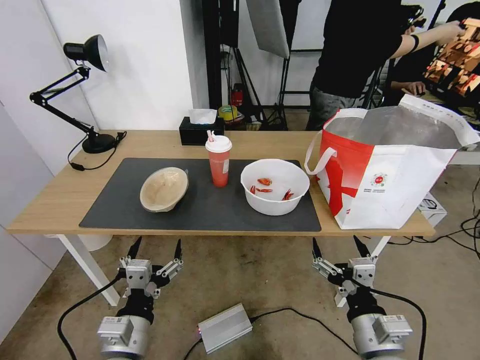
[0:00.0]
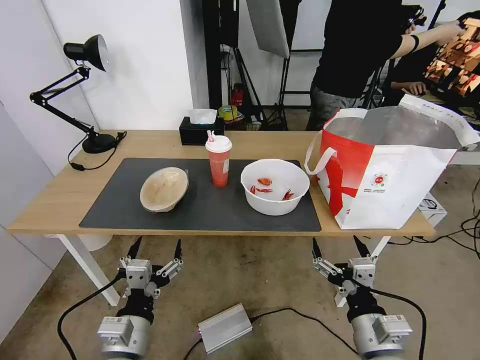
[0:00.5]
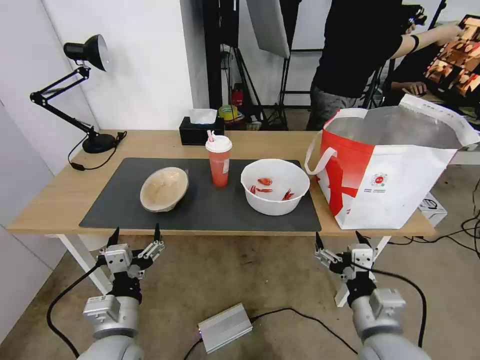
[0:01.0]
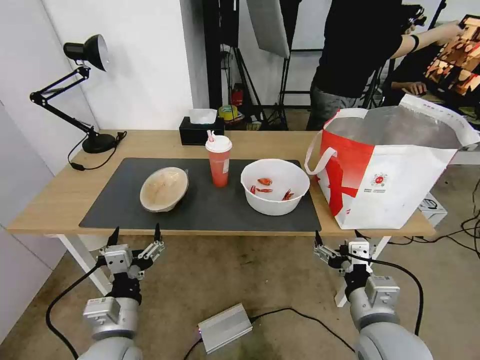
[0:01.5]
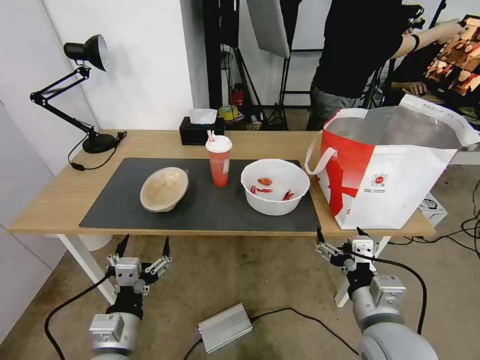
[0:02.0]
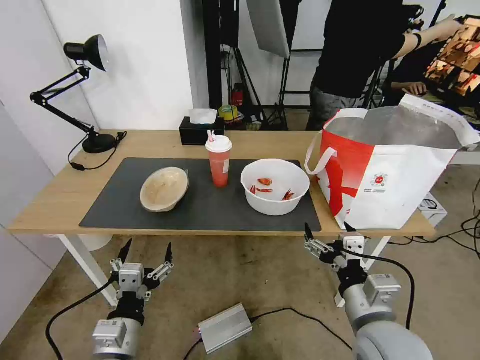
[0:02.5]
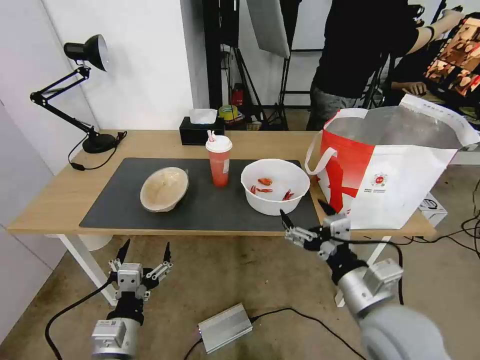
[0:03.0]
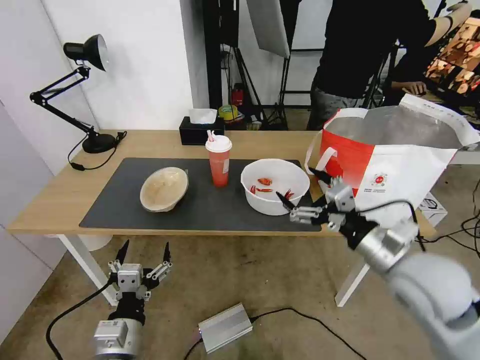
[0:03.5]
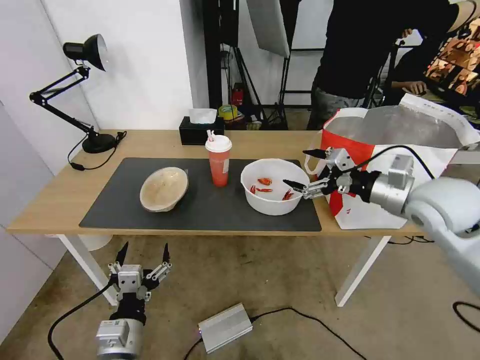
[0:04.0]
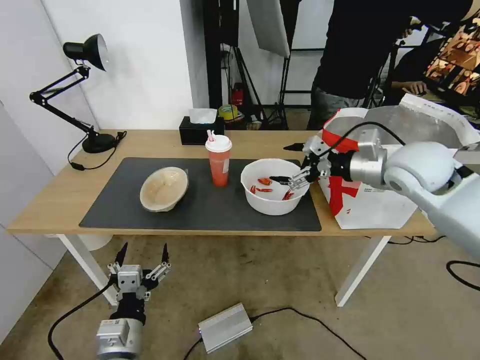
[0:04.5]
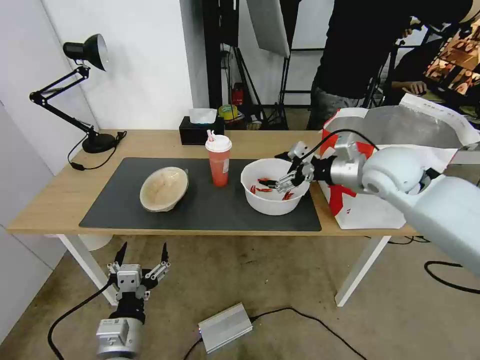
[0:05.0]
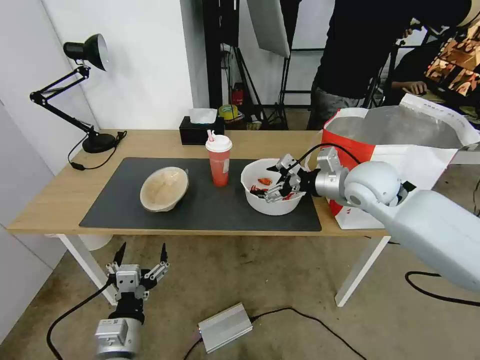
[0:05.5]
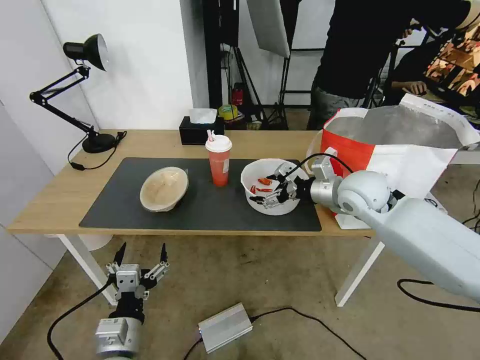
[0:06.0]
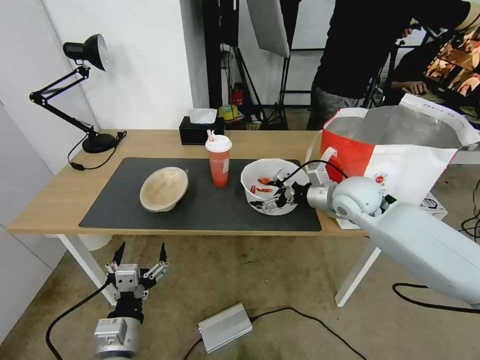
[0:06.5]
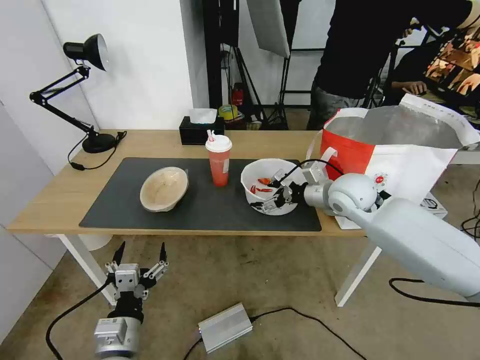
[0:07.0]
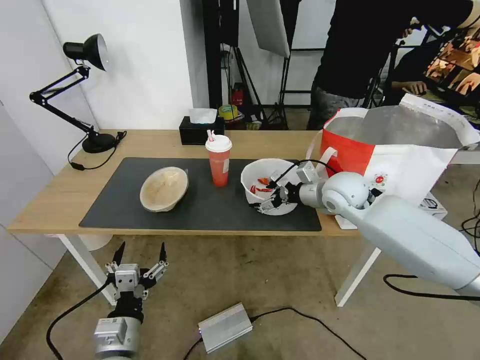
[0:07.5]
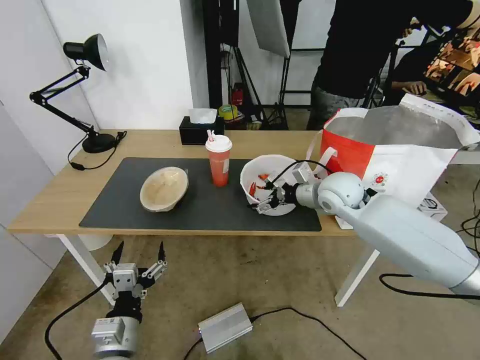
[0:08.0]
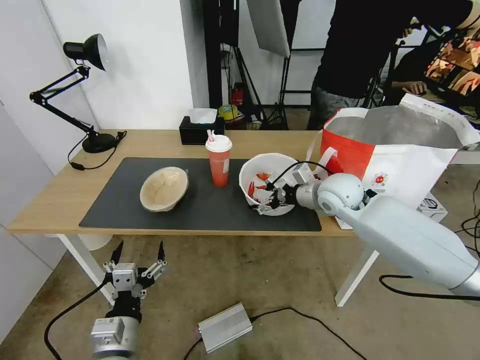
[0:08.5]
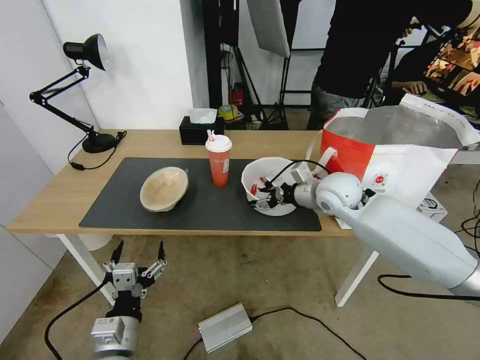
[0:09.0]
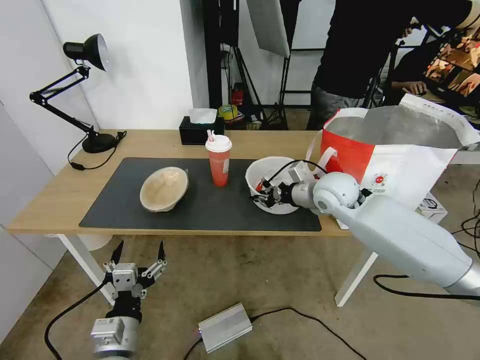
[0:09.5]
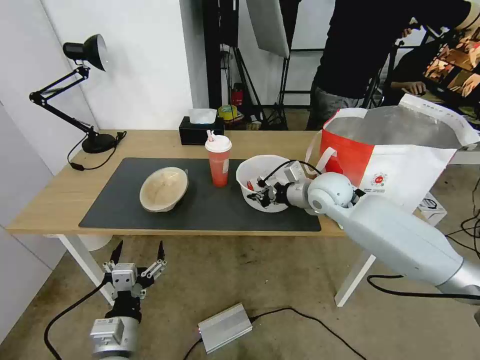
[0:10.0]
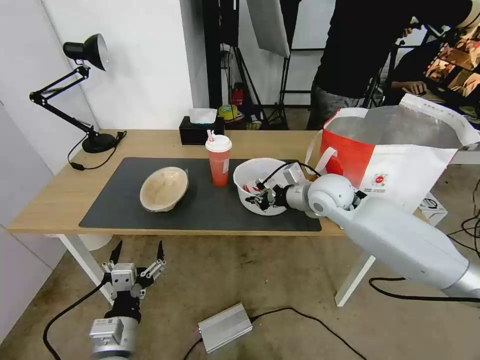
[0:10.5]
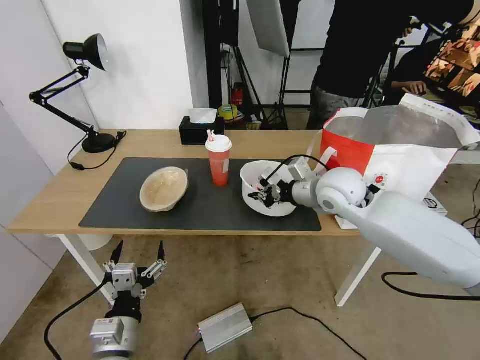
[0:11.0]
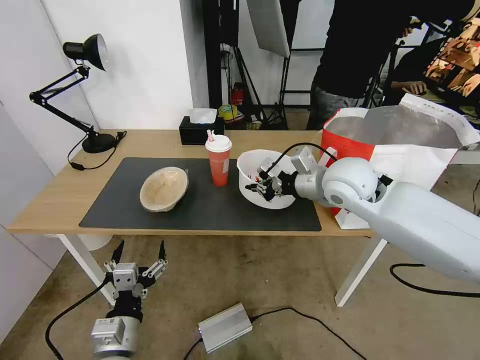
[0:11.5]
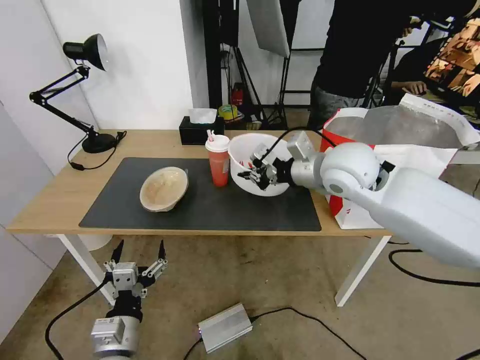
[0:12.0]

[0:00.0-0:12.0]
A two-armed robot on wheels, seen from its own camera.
Task of the whole recording: Pick up the trash from the table and place it into the takeout bag.
0:02.0 to 0:04.0: The right gripper is displaced forward, upward and to the right by roughly 25 cm.
0:04.0 to 0:06.0: The right gripper heads to the left, forward and downward, covering some 15 cm.
0:06.0 to 0:08.0: The right gripper moves roughly 5 cm.
0:08.0 to 0:10.0: The right gripper closes up.
0:10.0 to 0:12.0: The right gripper moves upward and backward, roughly 10 cm.

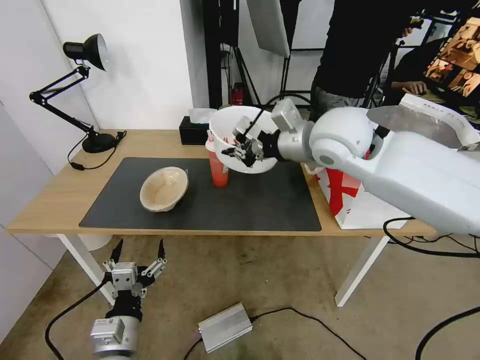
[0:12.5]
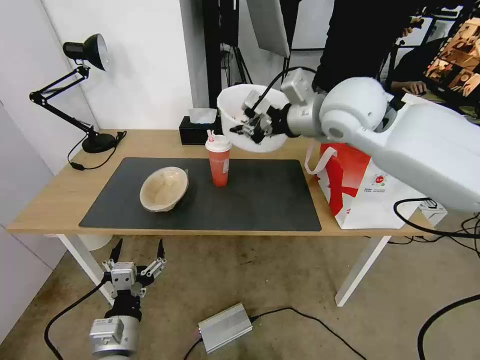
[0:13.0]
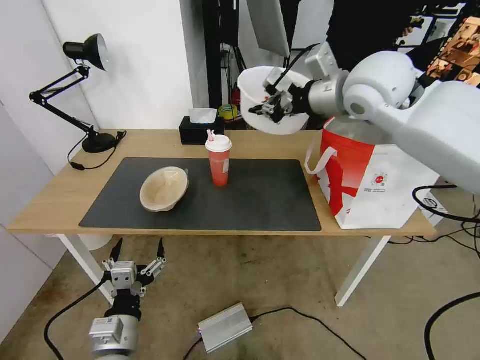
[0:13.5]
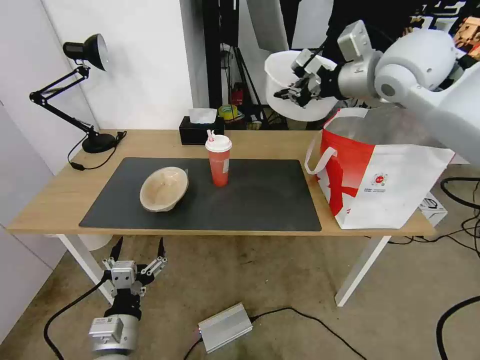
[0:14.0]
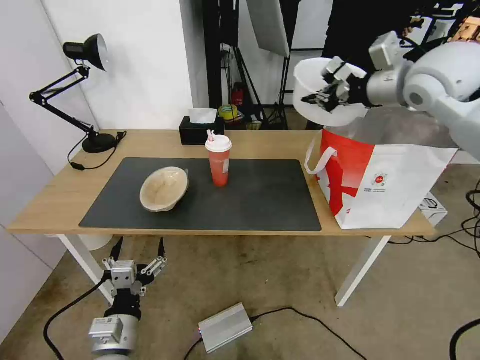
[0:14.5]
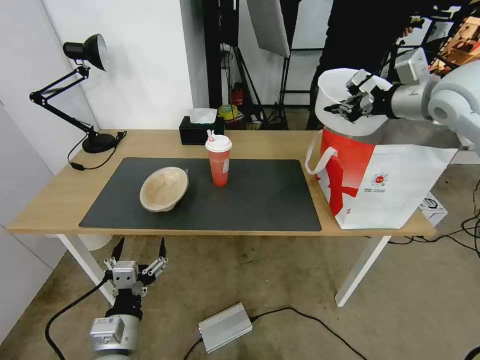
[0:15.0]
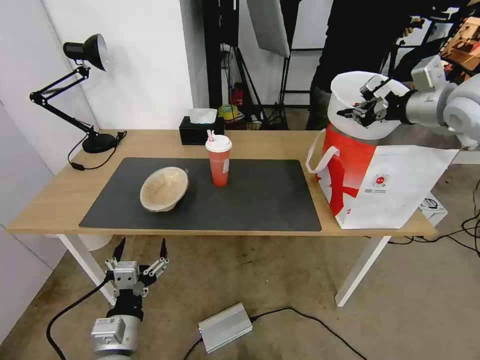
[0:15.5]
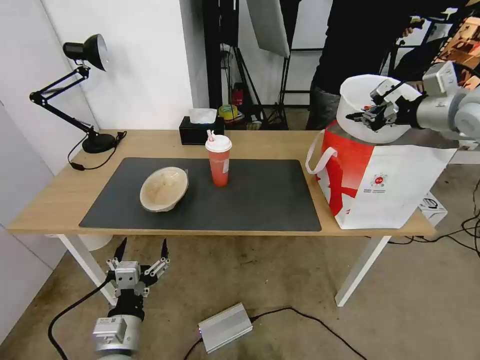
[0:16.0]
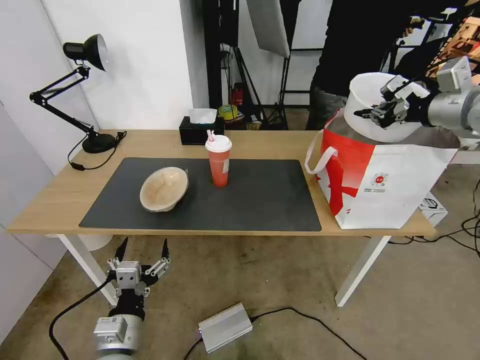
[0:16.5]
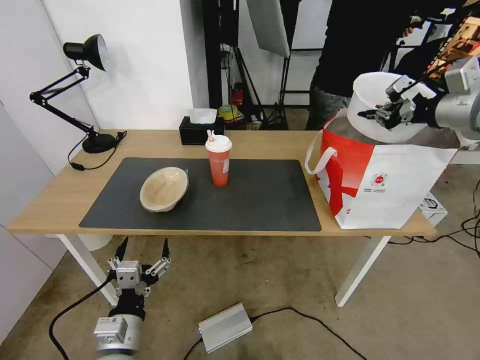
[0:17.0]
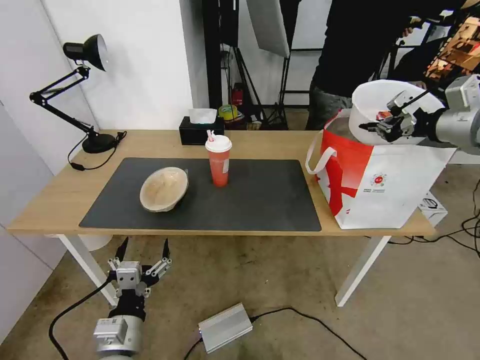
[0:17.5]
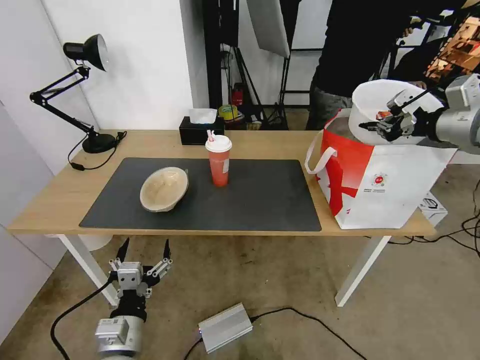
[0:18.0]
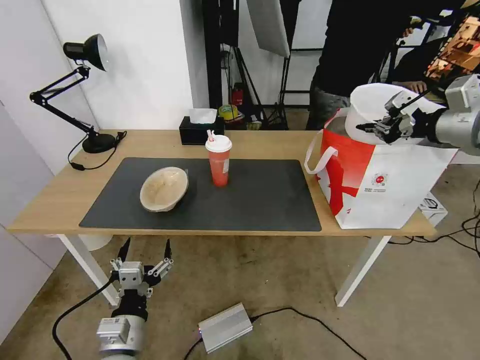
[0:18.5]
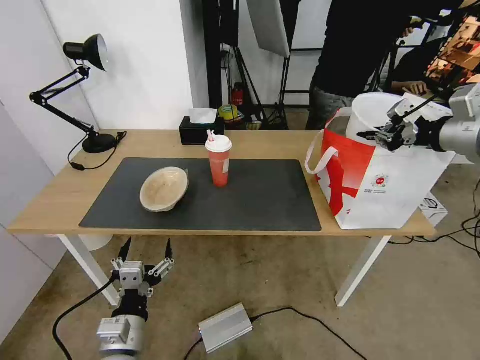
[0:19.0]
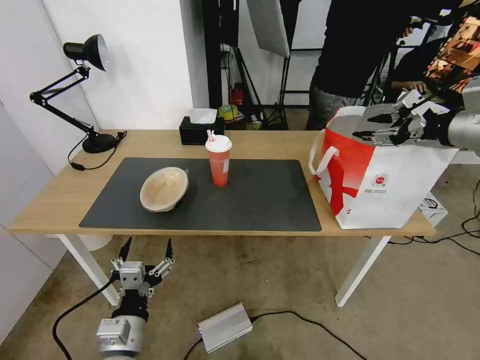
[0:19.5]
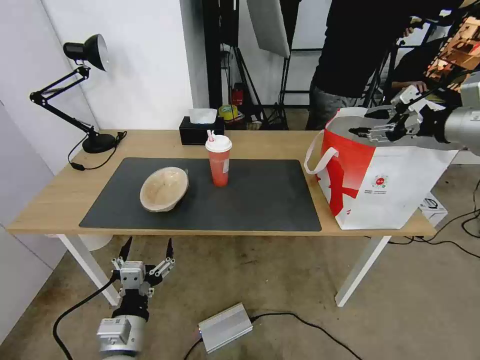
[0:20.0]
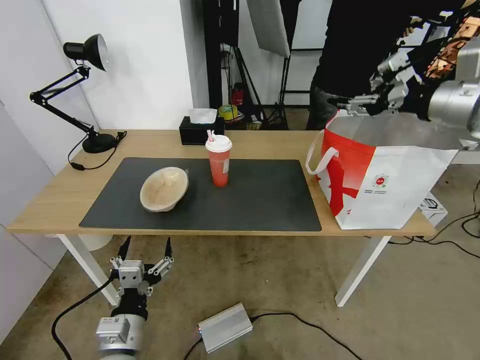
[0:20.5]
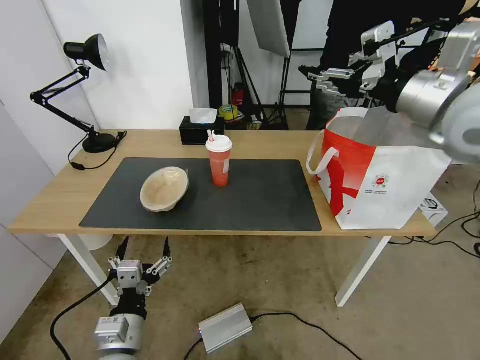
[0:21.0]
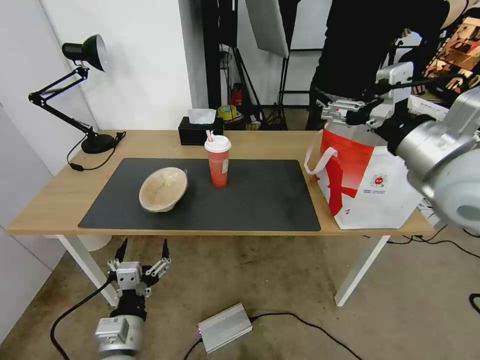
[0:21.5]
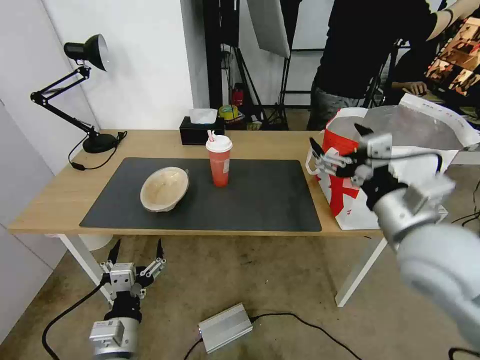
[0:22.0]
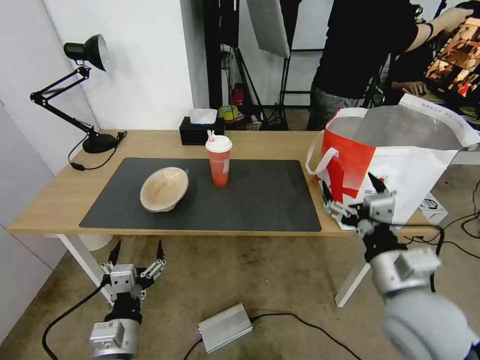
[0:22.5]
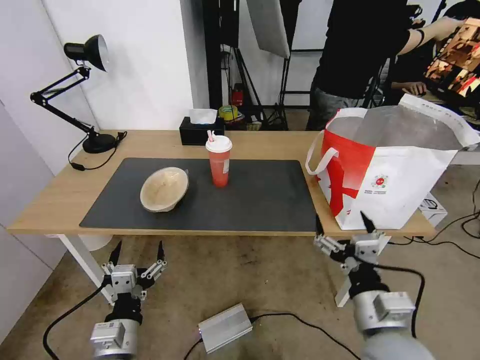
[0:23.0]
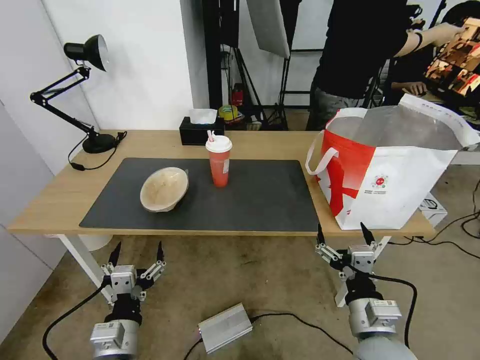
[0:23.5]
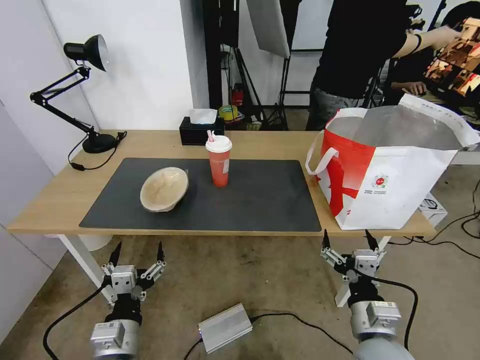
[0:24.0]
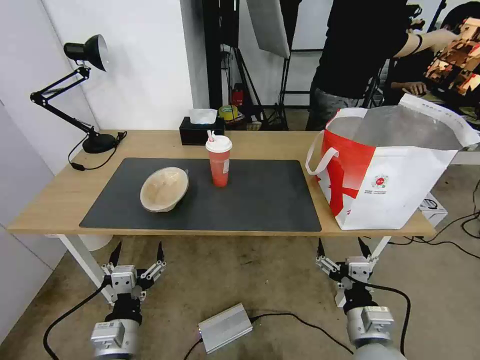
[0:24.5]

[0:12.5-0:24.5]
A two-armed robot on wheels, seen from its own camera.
Task of the whole recording: Pick up the trash from the table and place it into the takeout bag.
0:12.5 to 0:14.5: The right gripper heads to the right and upward, covering some 20 cm.
0:14.5 to 0:16.5: The right gripper goes roughly 10 cm to the right.
0:16.5 to 0:18.5: The grippers make only small movements.
0:18.5 to 0:20.5: The right gripper travels to the left by some 5 cm, and opens up.
0:20.5 to 0:22.5: The right gripper shifts about 35 cm downward, backward and to the left, and opens its fingers.
0:22.5 to 0:24.5: The right gripper travels downward by approximately 15 cm.

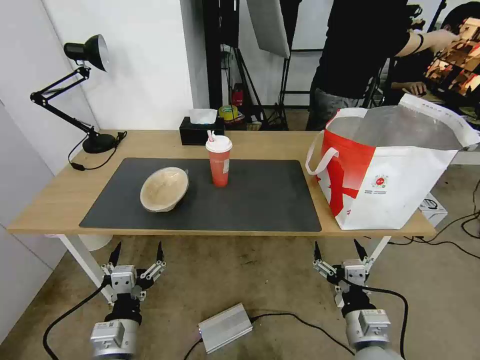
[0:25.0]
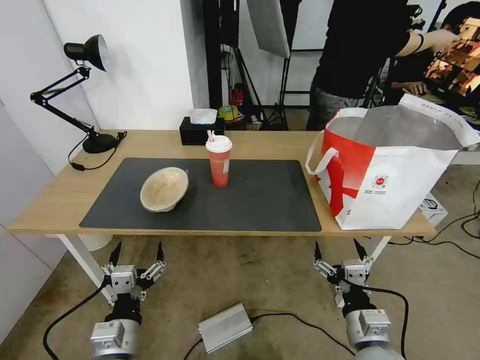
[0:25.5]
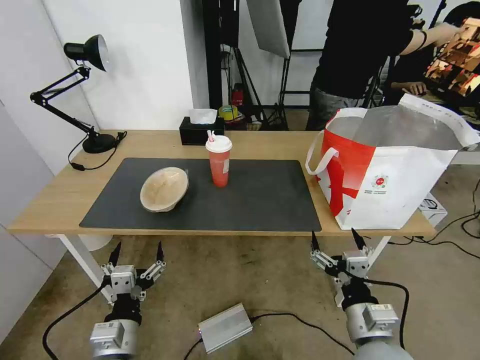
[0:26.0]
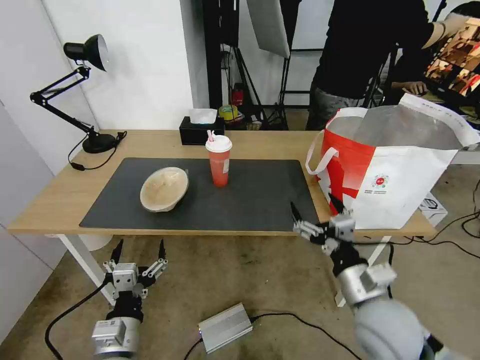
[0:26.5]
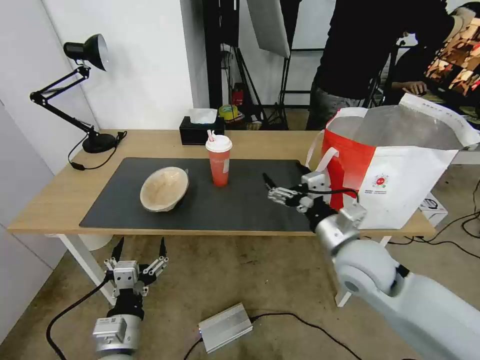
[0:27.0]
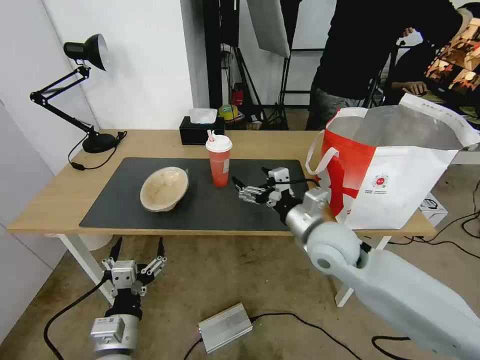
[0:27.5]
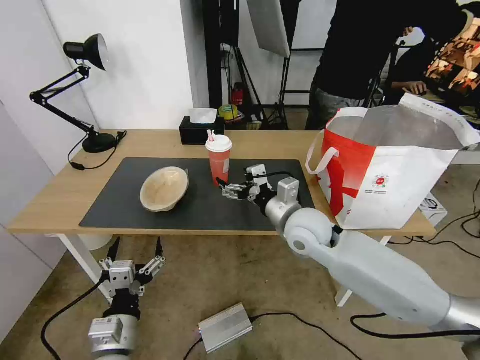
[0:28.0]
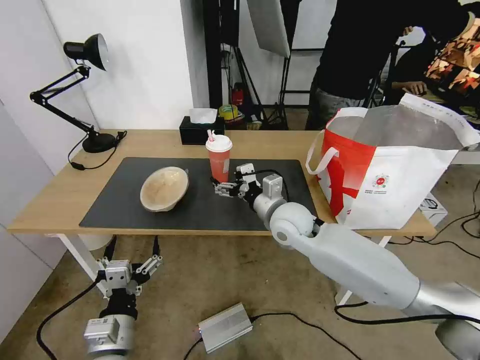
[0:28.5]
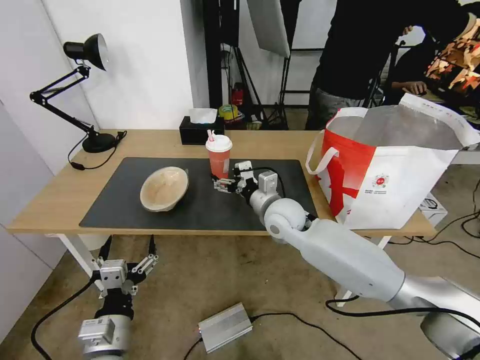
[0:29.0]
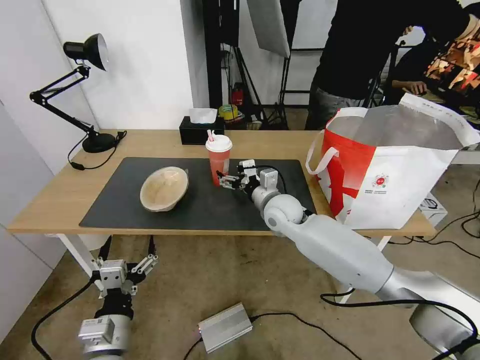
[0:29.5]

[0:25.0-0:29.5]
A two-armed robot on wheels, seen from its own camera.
Task of the whole recording: Pick up the trash from the table and place it into the takeout bag.
0:25.0 to 0:27.0: The right gripper goes about 20 cm forward and upward.
0:27.0 to 0:29.5: The right gripper goes about 20 cm forward and to the left.